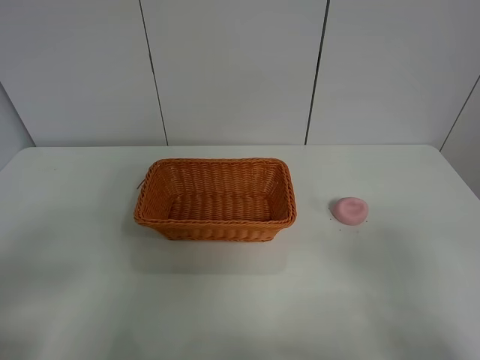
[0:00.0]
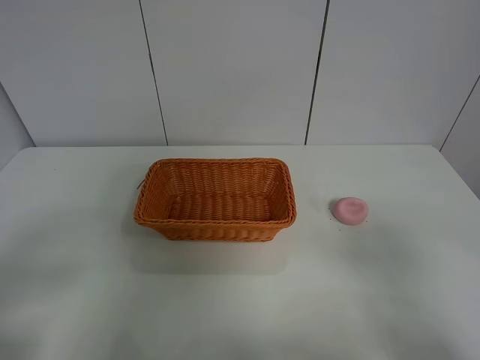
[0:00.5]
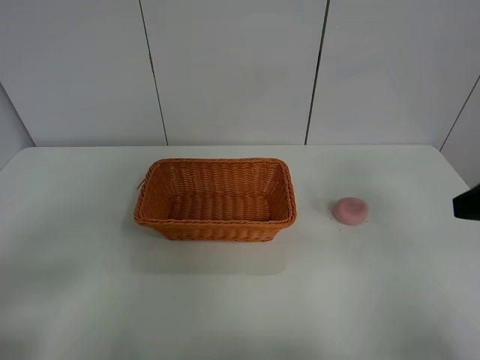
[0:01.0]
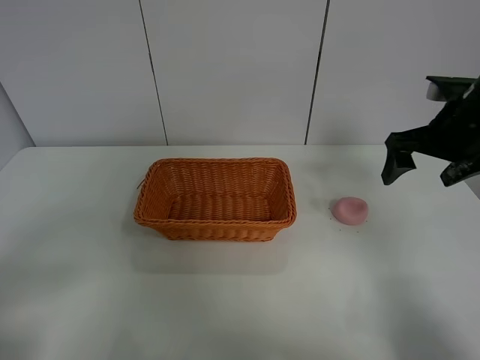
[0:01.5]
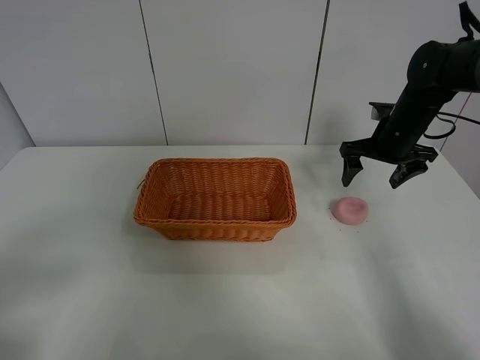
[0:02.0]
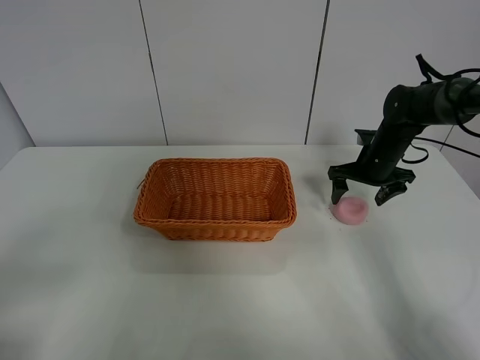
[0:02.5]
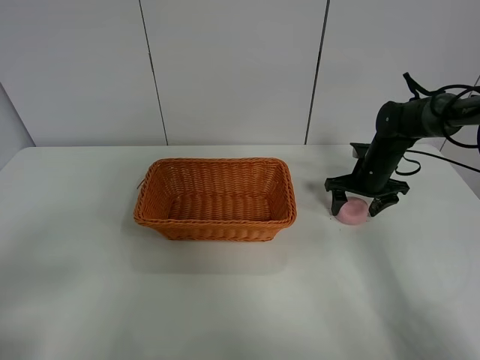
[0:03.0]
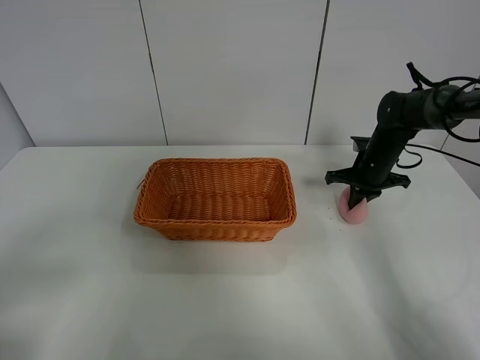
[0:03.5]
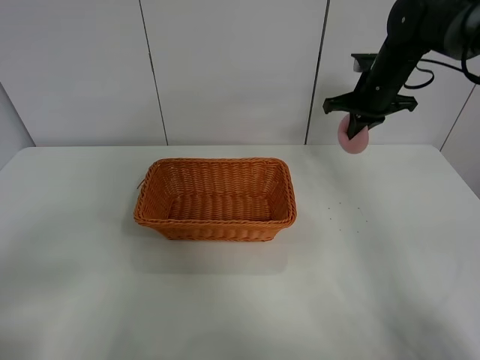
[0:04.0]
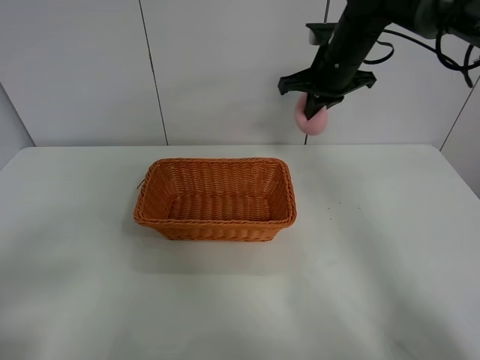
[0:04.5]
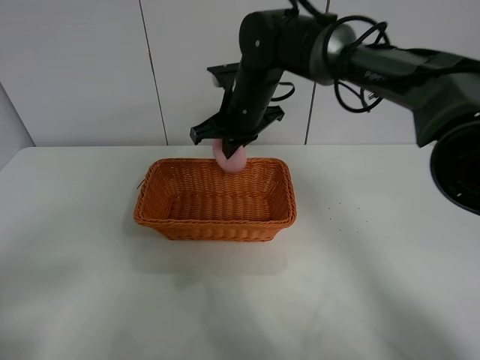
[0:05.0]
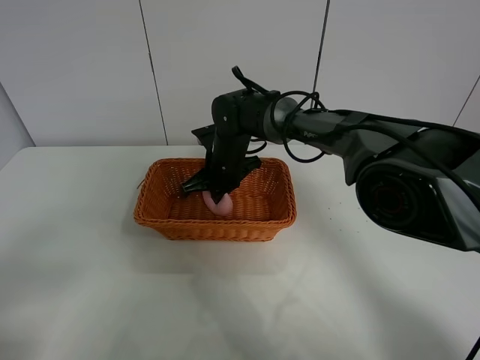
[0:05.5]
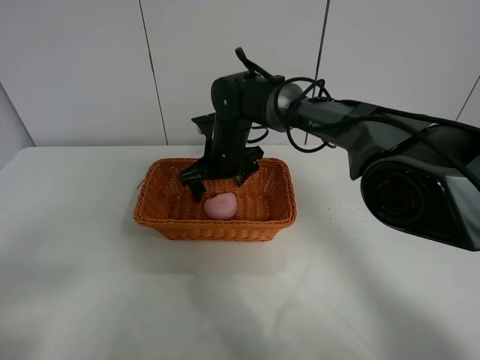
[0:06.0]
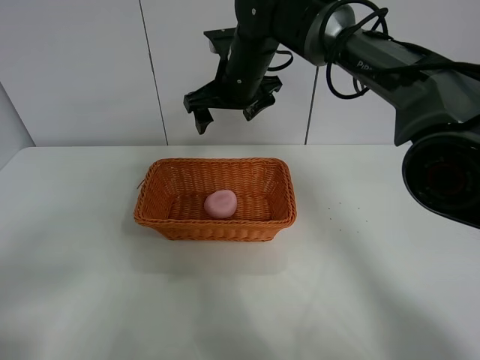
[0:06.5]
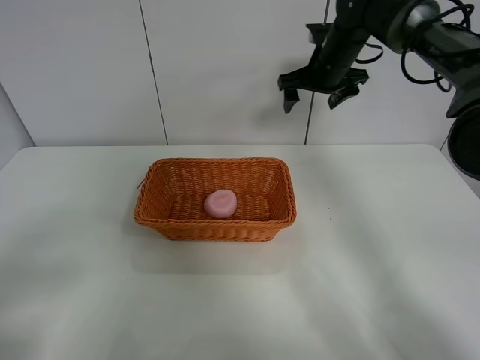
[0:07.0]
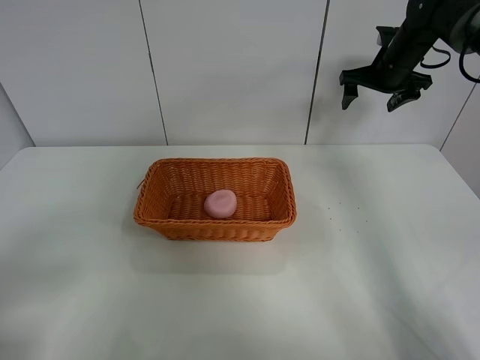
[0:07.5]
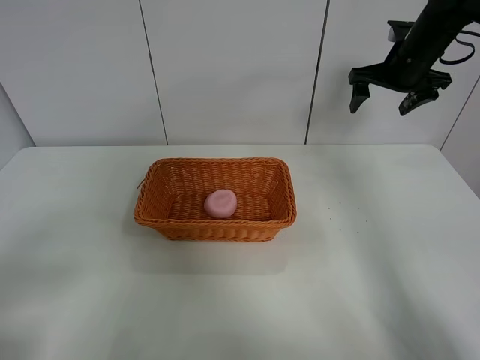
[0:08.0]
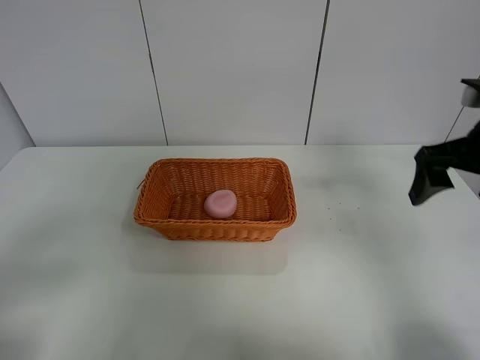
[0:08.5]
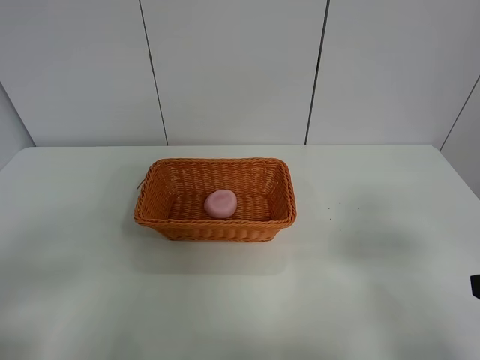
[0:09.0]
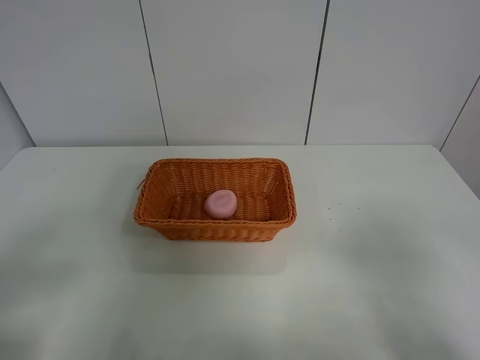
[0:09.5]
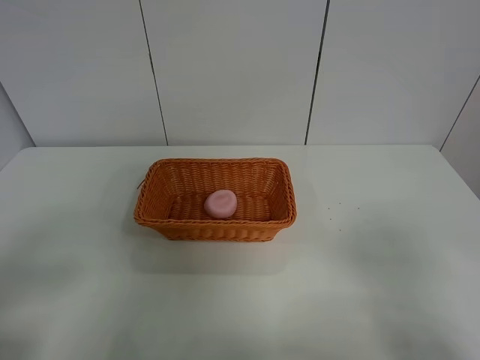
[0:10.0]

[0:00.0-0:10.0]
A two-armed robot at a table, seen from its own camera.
Step, 0:00.0 to 0:03.0: Grasp the peach with right gripper.
Step, 0:03.5 to 0:06.0: Place the peach in the basket with right gripper.
0:02.0 to 0:04.0: The right gripper shifts roughly 5 cm forward, goes downward and returns, about 10 cm each way, and closes up.
0:04.0 to 0:06.0: The right gripper moves to the left, some 25 cm, and opens.
0:06.0 to 0:08.0: The right gripper goes about 30 cm to the right and upward.
0:08.0 to 0:10.0: The right gripper goes approximately 50 cm backward.
